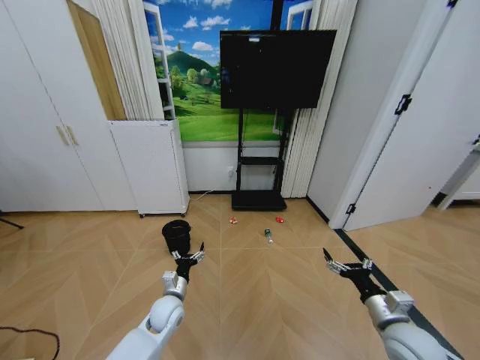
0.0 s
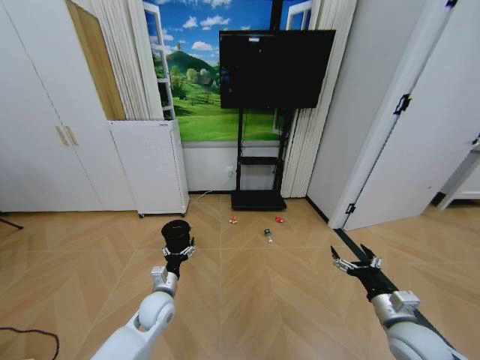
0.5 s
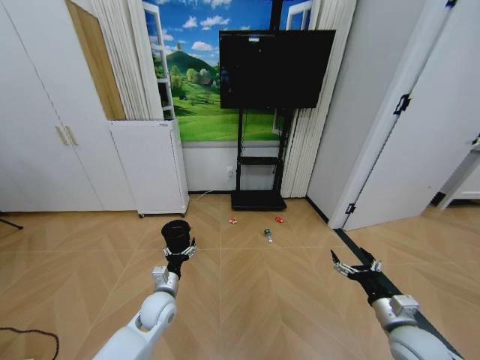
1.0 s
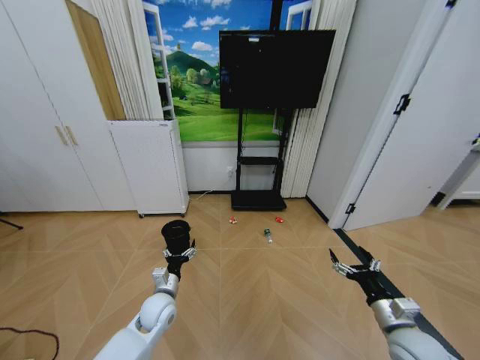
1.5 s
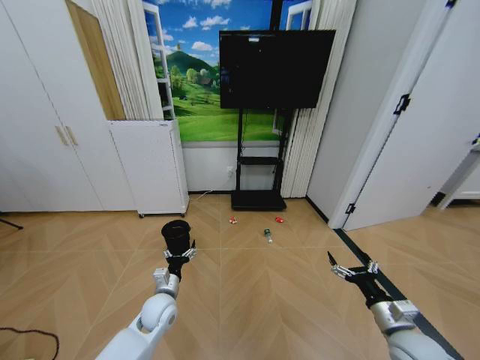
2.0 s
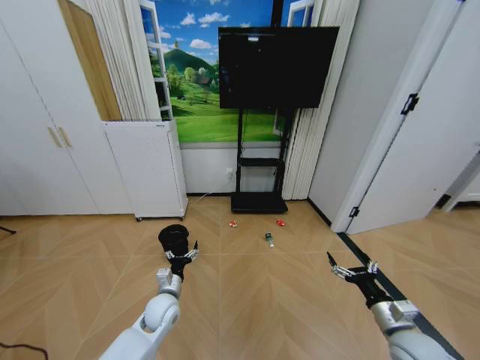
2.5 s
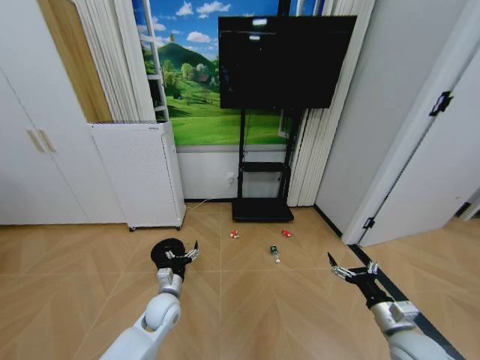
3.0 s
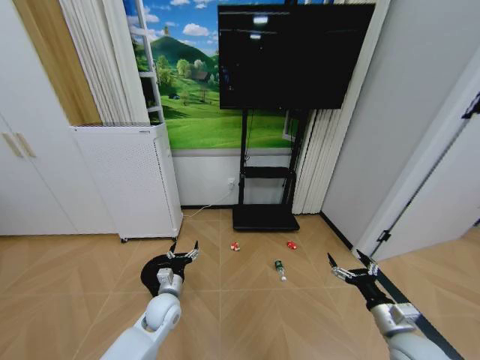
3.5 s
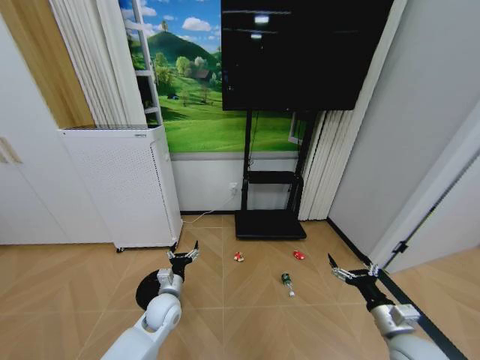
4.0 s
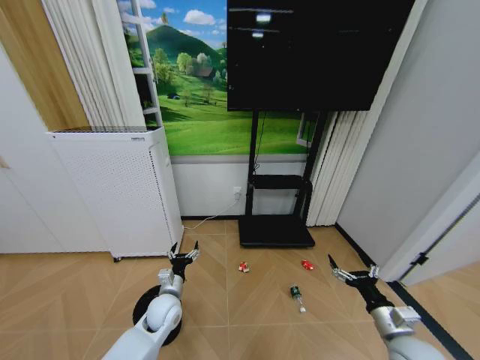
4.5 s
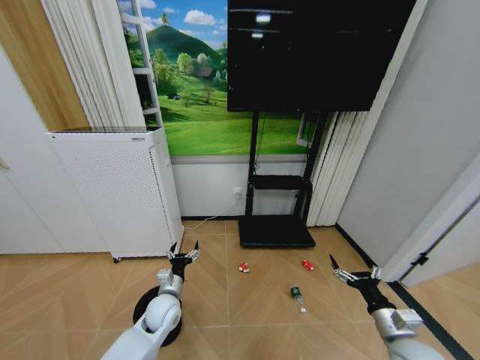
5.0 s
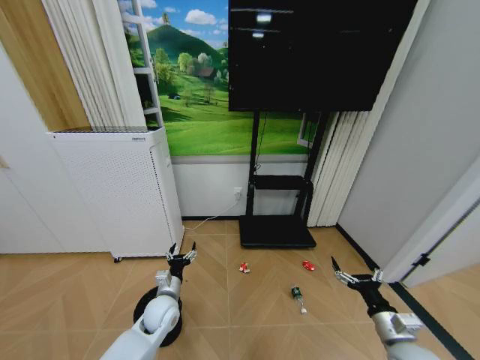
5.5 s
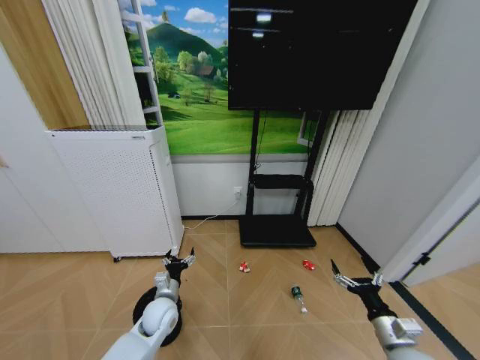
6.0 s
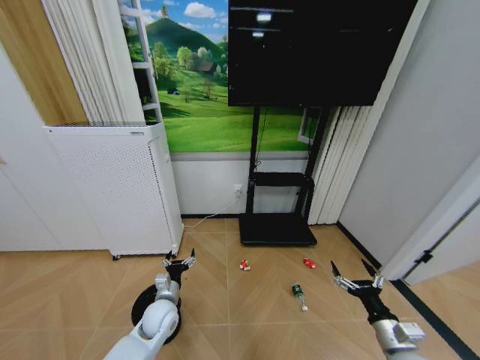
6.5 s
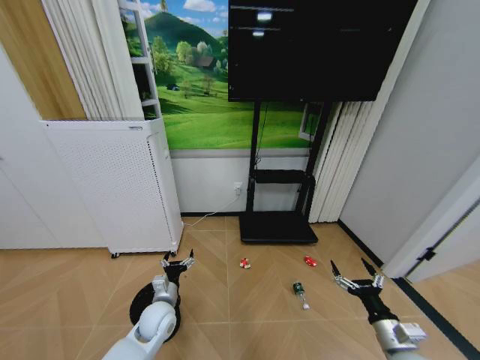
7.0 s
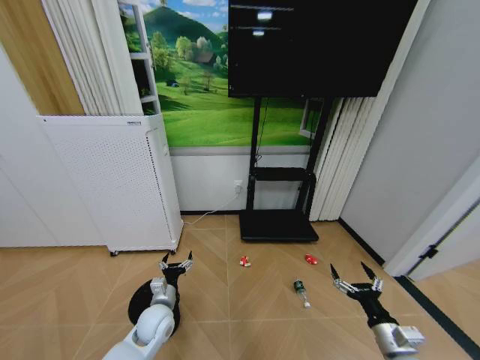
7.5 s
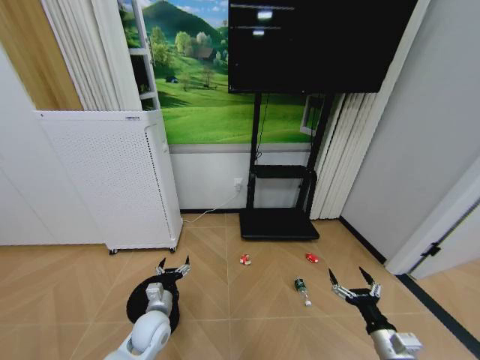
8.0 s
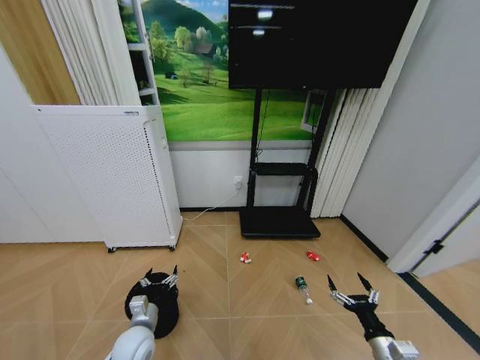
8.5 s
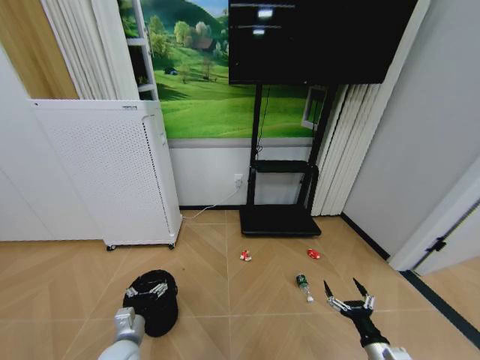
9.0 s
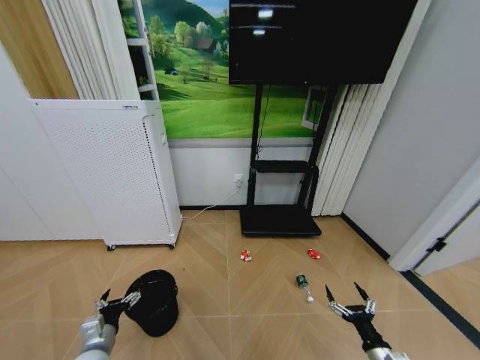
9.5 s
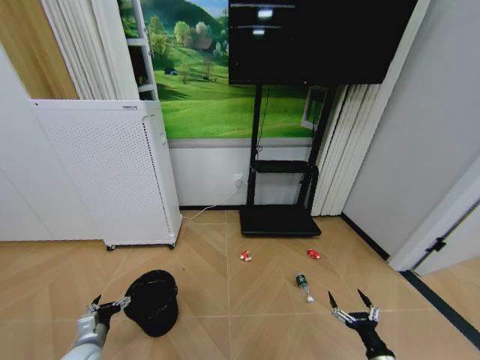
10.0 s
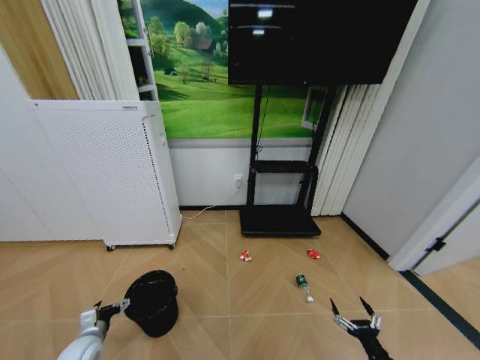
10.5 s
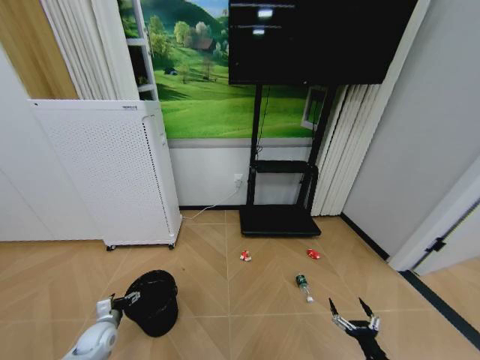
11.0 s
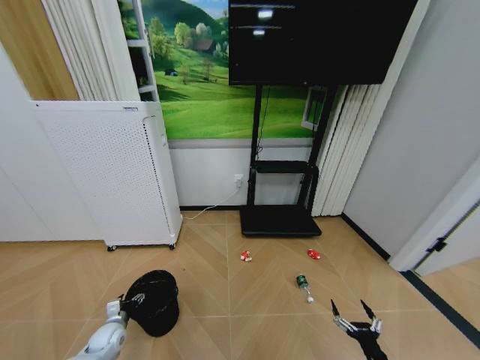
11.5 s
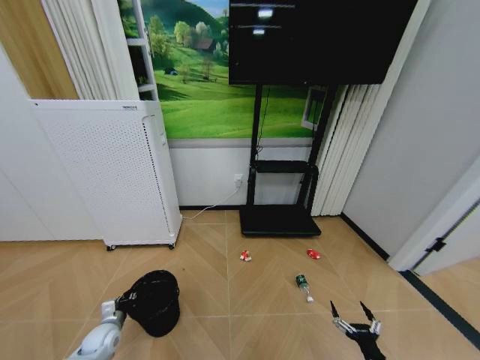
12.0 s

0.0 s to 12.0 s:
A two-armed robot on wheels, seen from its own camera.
Task of the whole recording: Pick up the trash bin and place the garbage on the floor into it.
6.0 to 8.0 s: The grippers make only small movements.
8.0 to 10.0 s: The left gripper moves to the left, approximately 20 cm, while the right gripper shifts about 10 cm downward.
10.0 to 12.0 s: The left gripper heads forward and downward, covering approximately 10 cm, and closes.

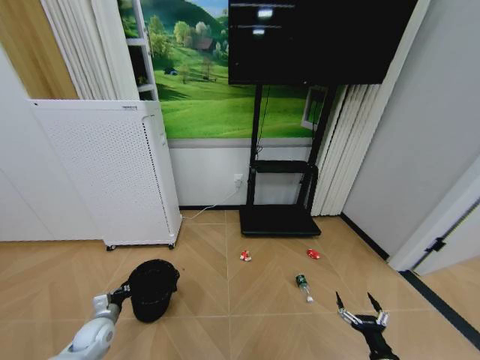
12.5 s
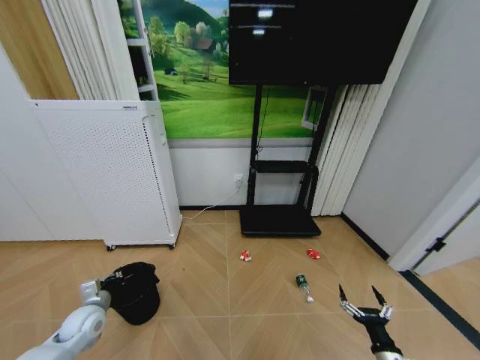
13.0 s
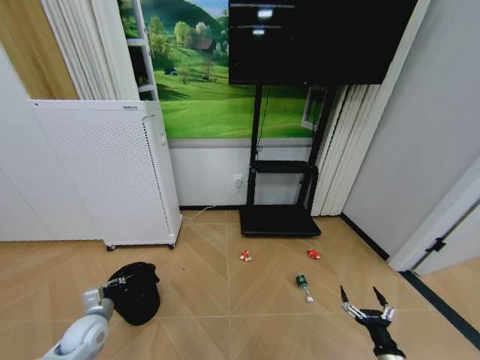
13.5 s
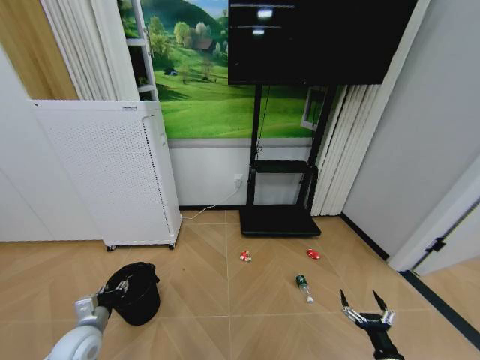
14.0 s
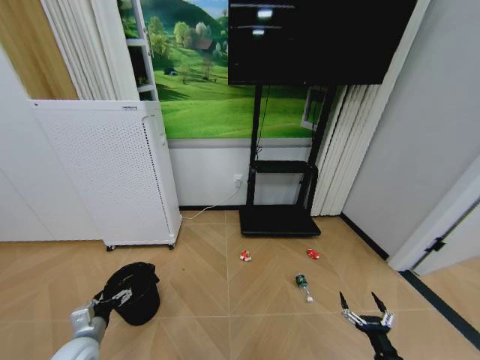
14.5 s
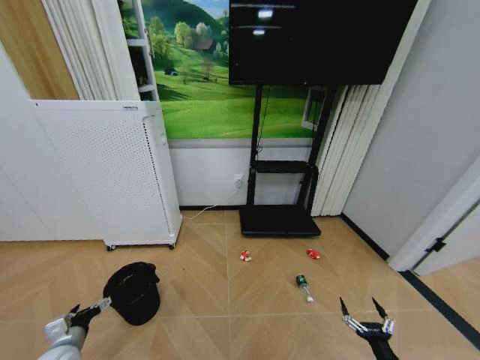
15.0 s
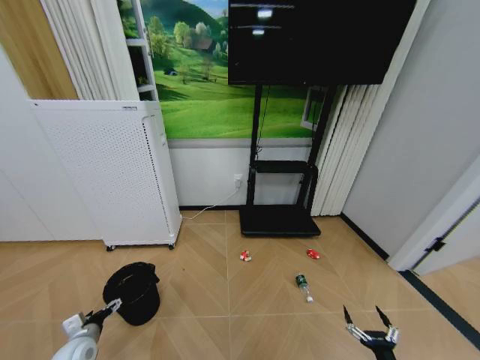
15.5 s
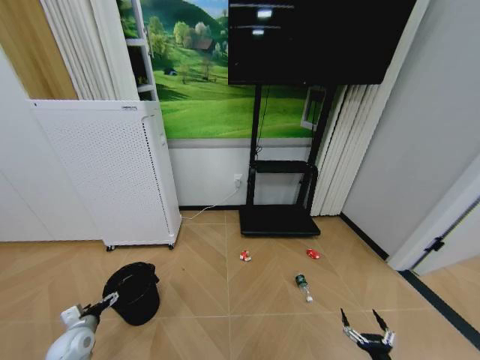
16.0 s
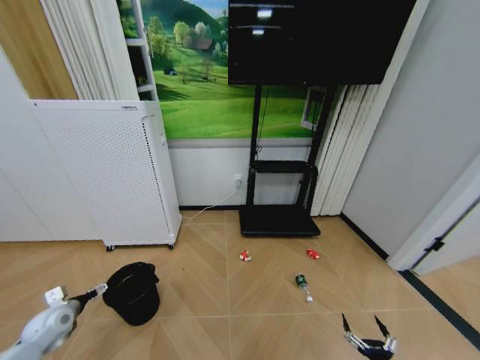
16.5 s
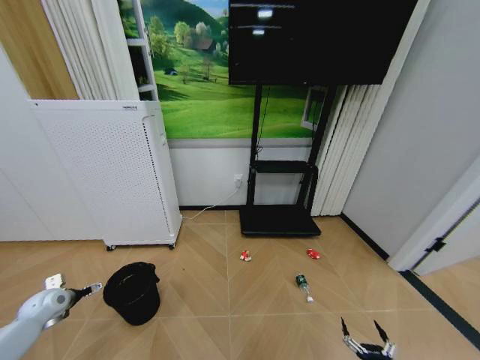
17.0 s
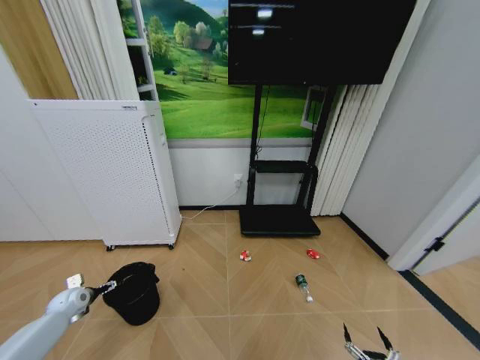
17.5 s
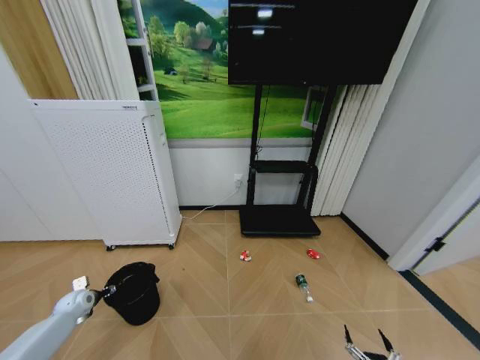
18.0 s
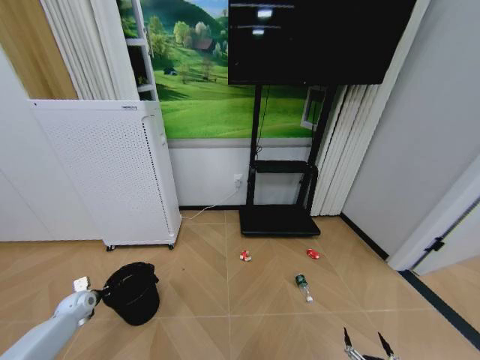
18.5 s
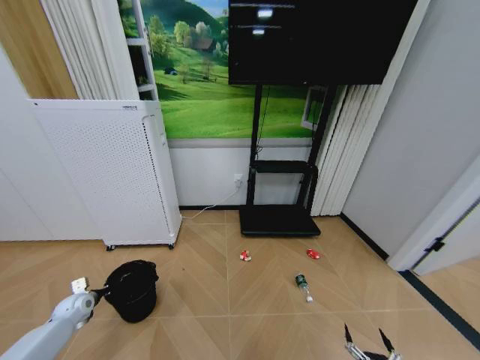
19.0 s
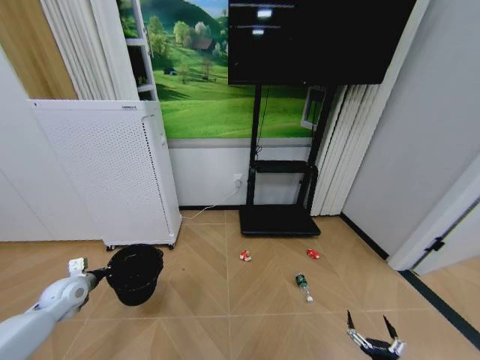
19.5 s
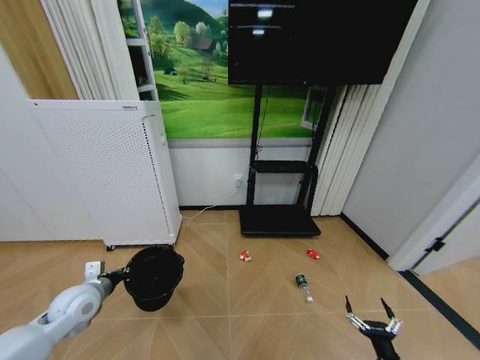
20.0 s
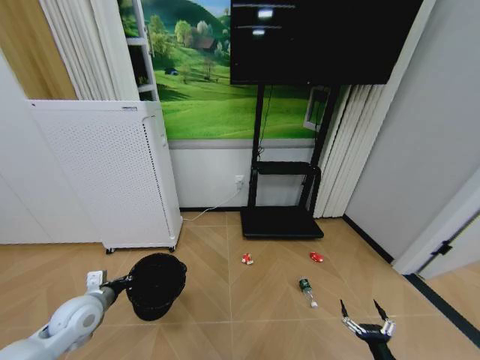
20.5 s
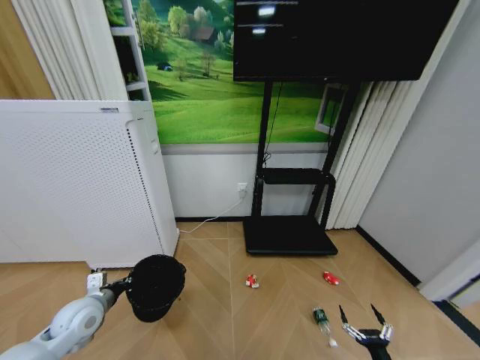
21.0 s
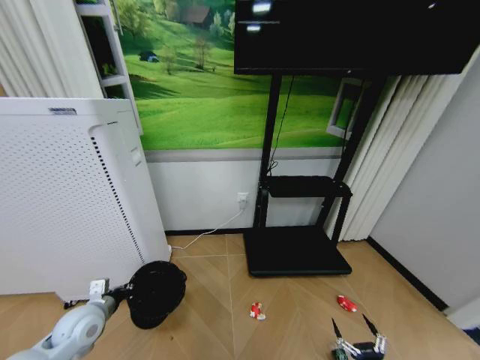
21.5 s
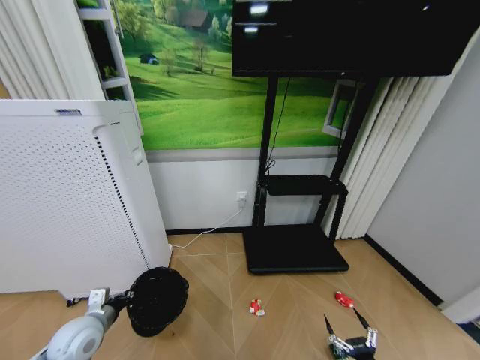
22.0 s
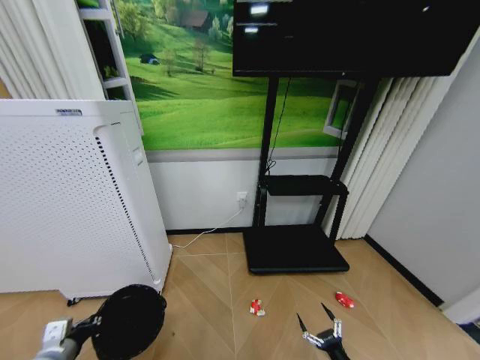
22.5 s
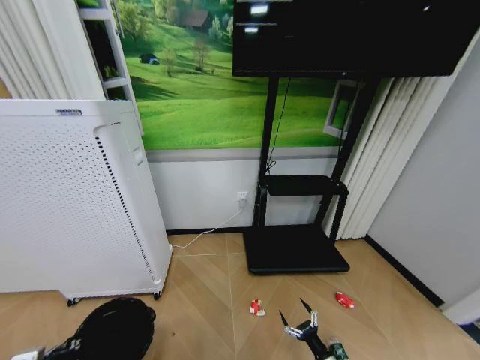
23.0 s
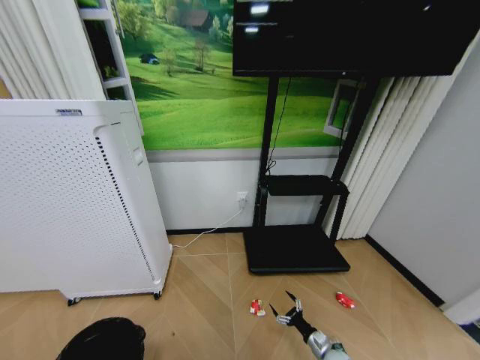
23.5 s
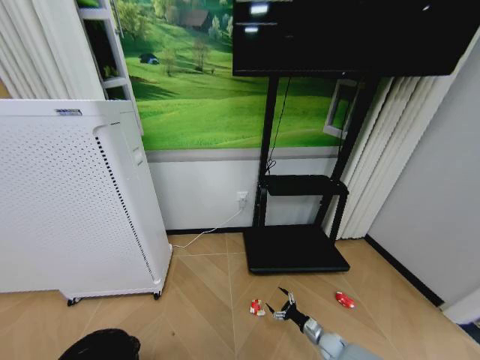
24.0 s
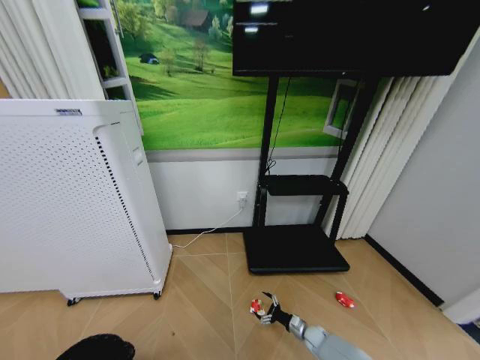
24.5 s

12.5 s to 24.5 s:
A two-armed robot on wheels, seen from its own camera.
Task of the whole recording: Pick up the trash bin and place the garbage on the floor into it.
12.5 to 14.5 s: The left gripper is displaced backward and upward by some 10 cm, and opens up.
14.5 to 16.5 s: The right gripper ends up some 5 cm from where it was, while the left gripper shifts about 15 cm to the left and forward.
16.5 to 18.5 s: The left gripper is displaced forward and downward by approximately 10 cm, and closes up.
18.5 to 20.5 s: The left gripper is displaced to the right, upward and backward by roughly 20 cm. Meanwhile the right gripper shifts approximately 5 cm forward.
20.5 to 22.5 s: The left gripper goes approximately 10 cm backward; the right gripper moves to the left, roughly 5 cm.
22.5 to 24.5 s: The left gripper goes approximately 15 cm backward; the right gripper goes roughly 25 cm forward and downward.

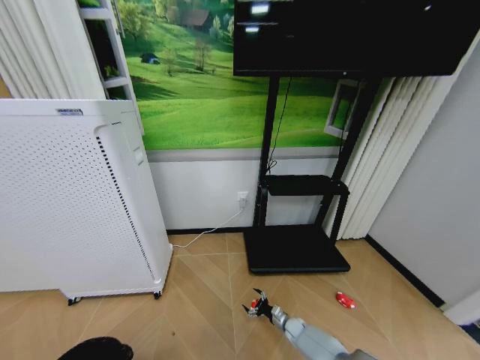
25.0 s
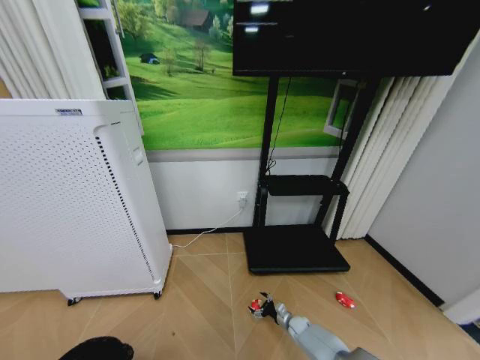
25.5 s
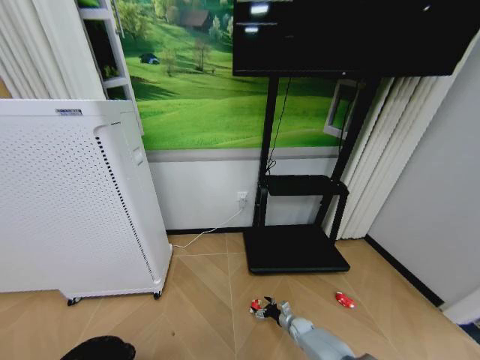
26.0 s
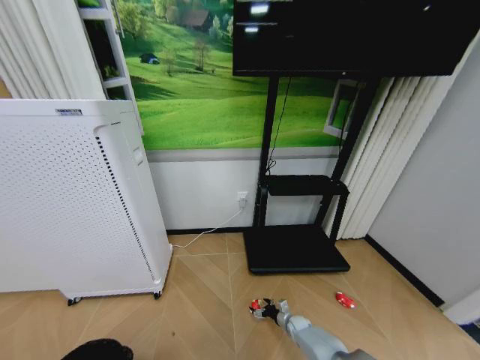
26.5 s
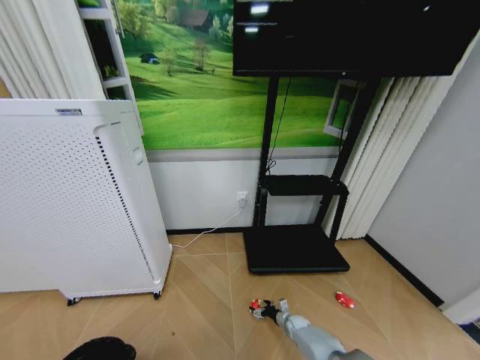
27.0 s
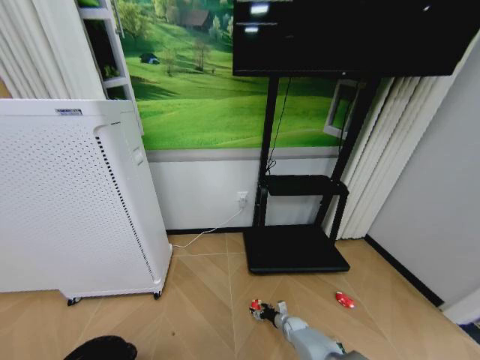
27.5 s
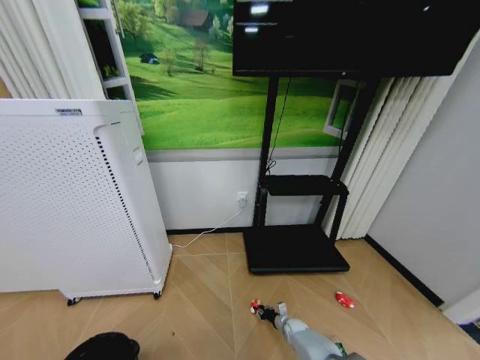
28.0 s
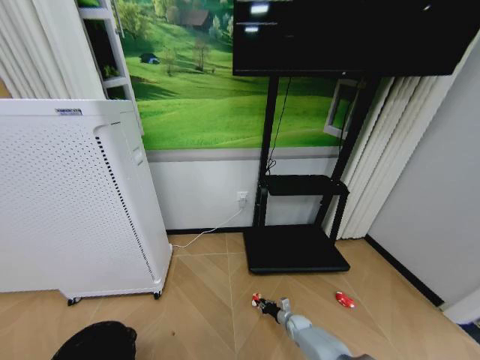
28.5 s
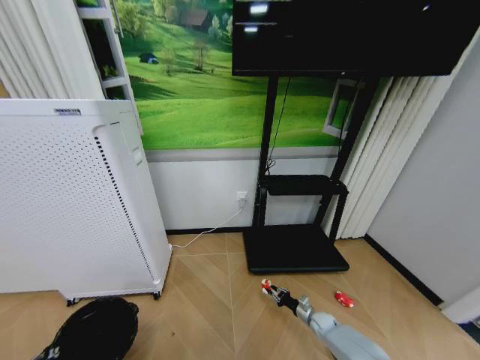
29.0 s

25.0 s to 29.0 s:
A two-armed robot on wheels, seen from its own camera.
Task of the whole recording: Pick up the trash bin and place the garbage on the floor into it.
27.0 to 29.0 s: The left gripper moves forward, about 10 cm, while the right gripper heads to the right and upward, covering about 10 cm, and closes its fingers.
